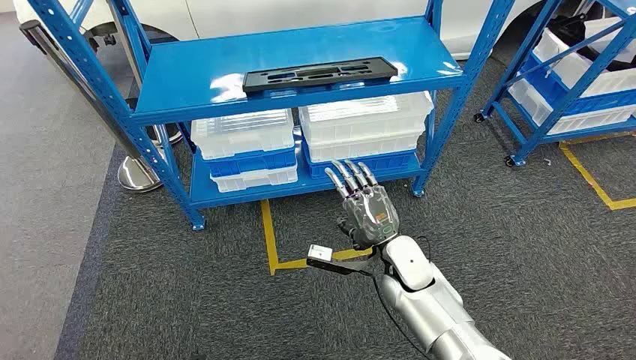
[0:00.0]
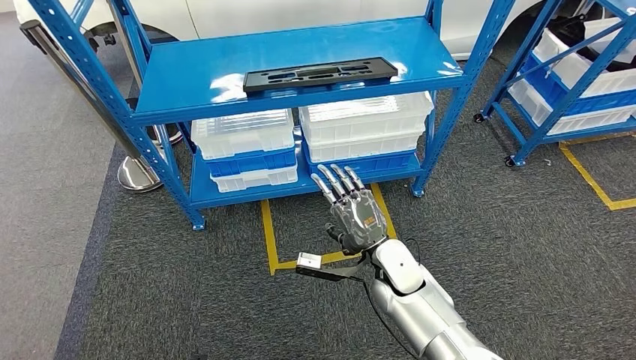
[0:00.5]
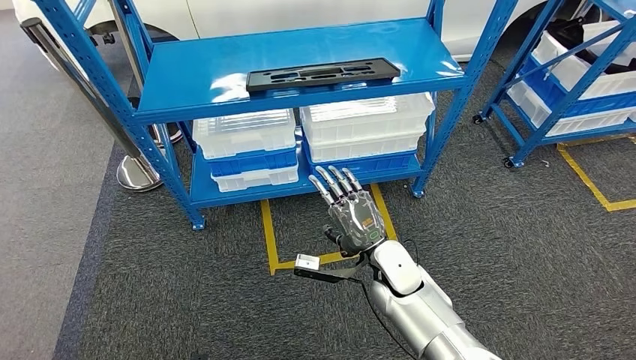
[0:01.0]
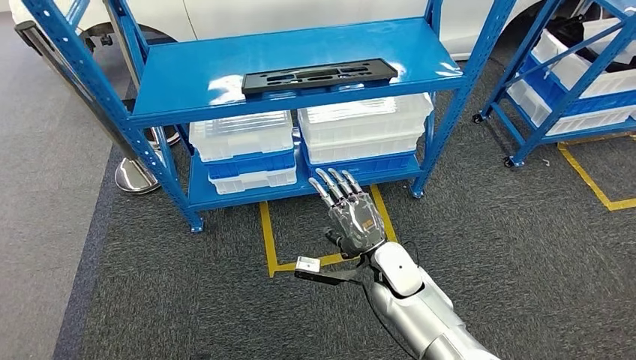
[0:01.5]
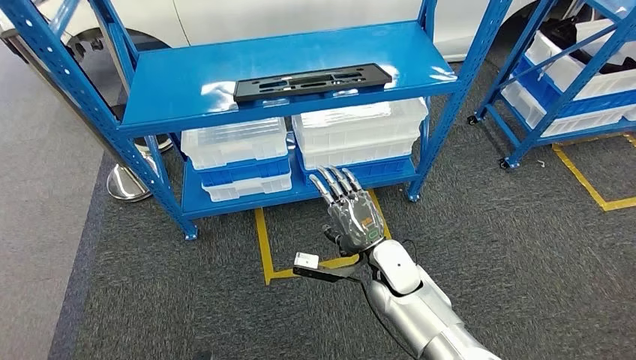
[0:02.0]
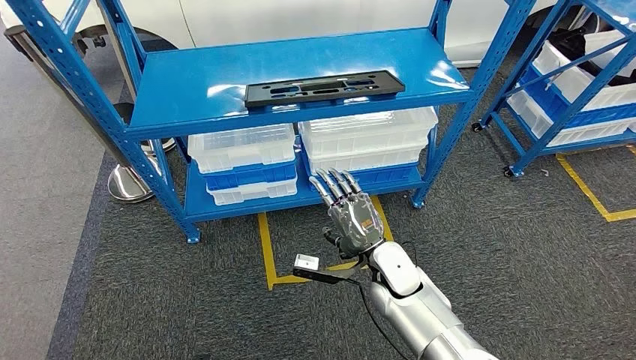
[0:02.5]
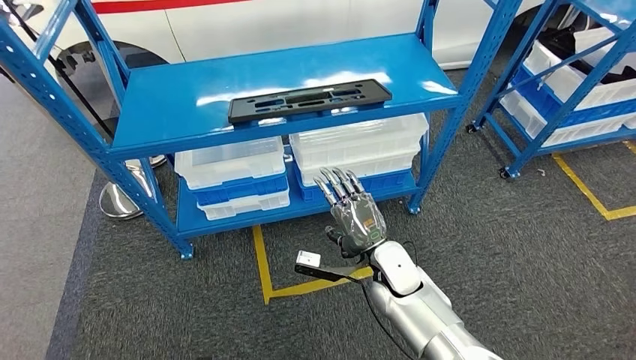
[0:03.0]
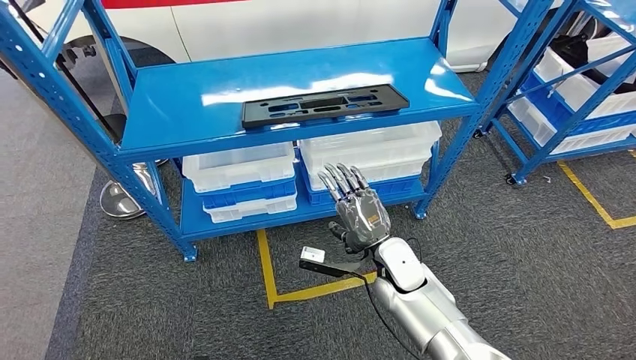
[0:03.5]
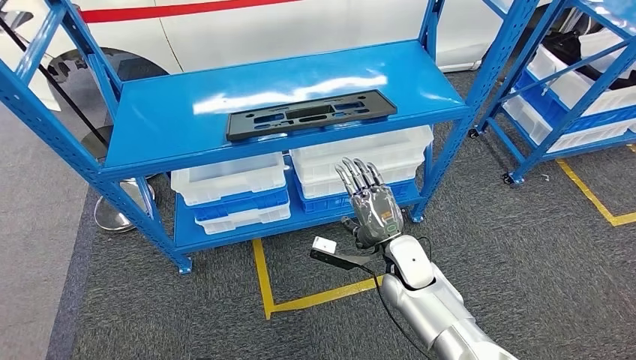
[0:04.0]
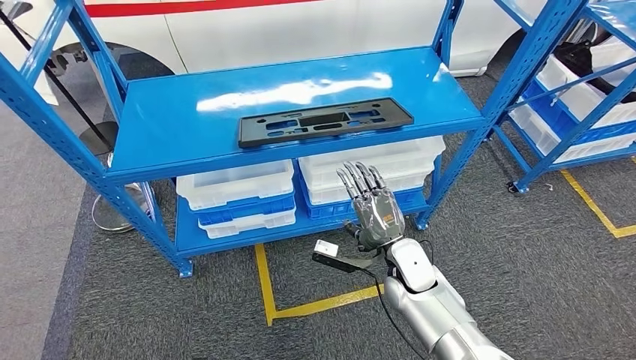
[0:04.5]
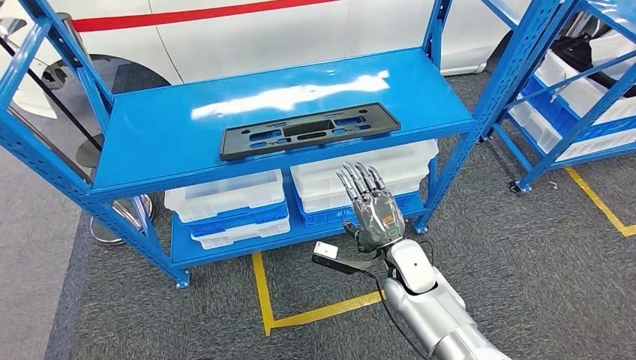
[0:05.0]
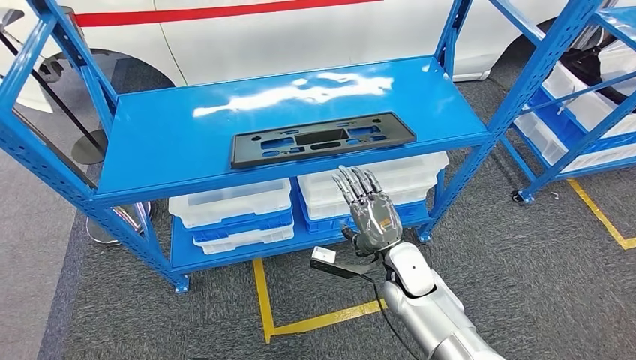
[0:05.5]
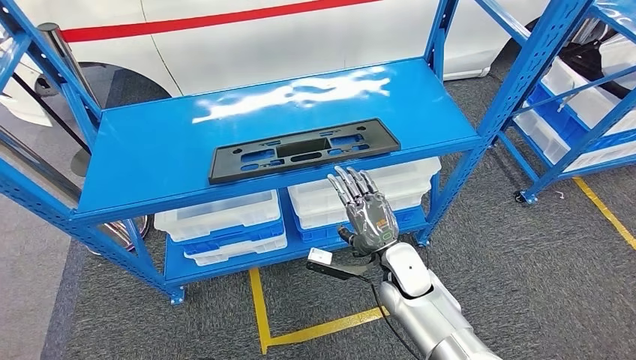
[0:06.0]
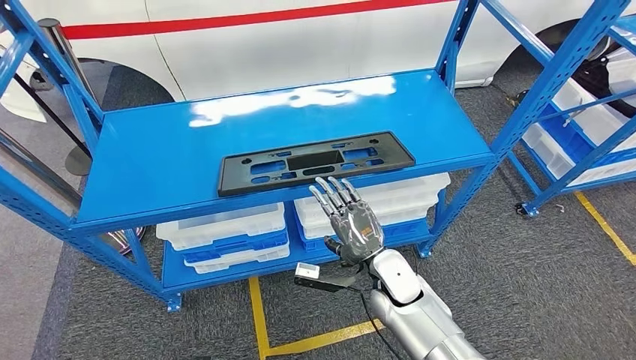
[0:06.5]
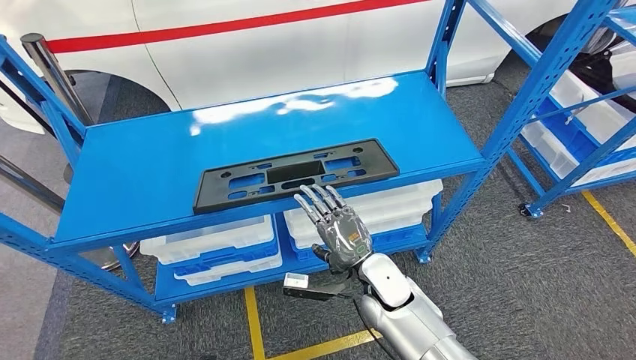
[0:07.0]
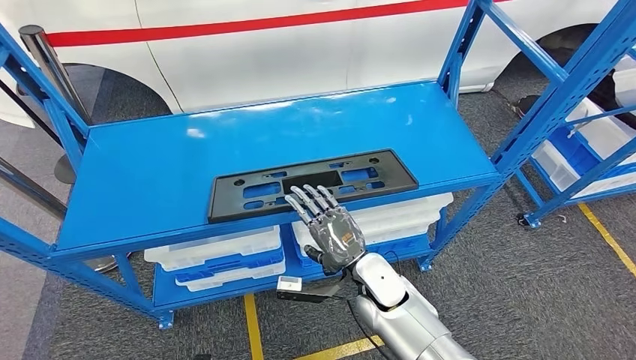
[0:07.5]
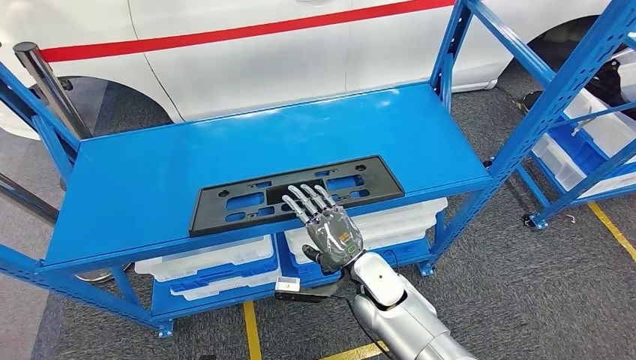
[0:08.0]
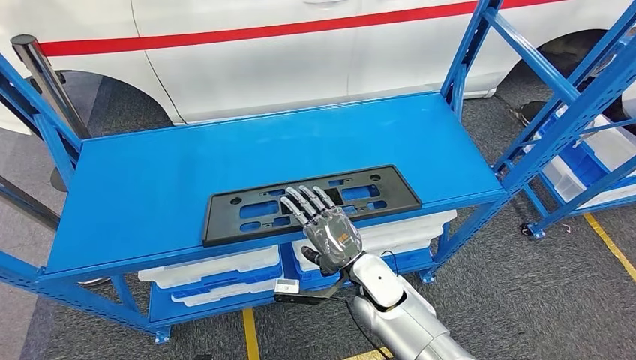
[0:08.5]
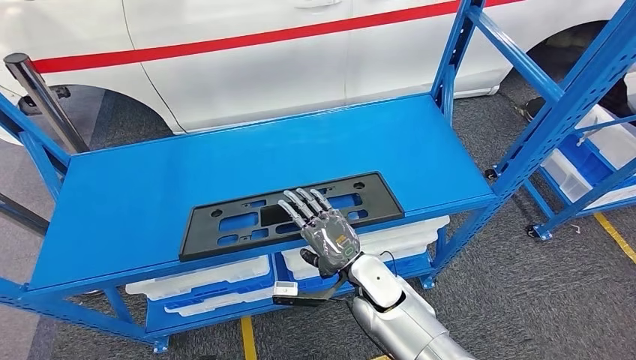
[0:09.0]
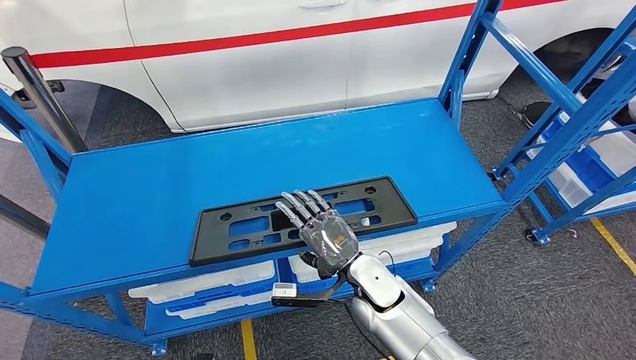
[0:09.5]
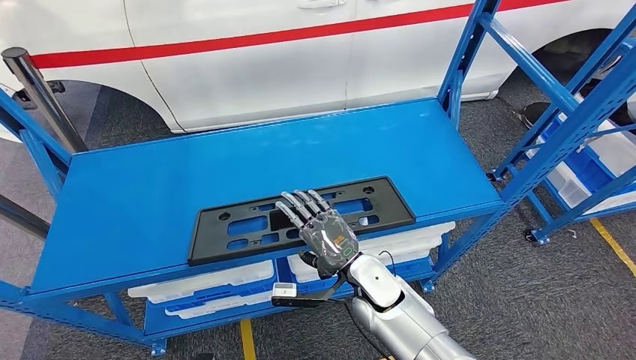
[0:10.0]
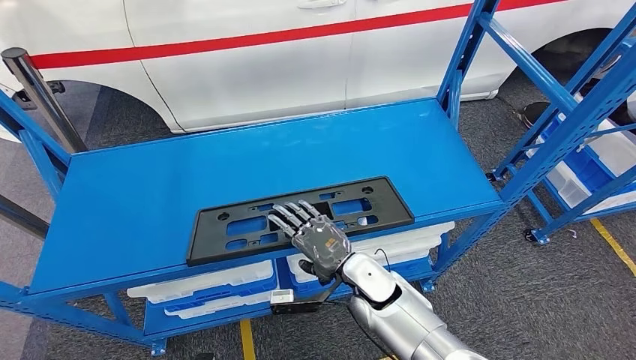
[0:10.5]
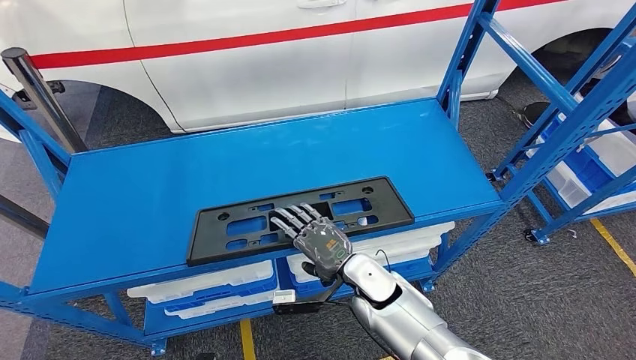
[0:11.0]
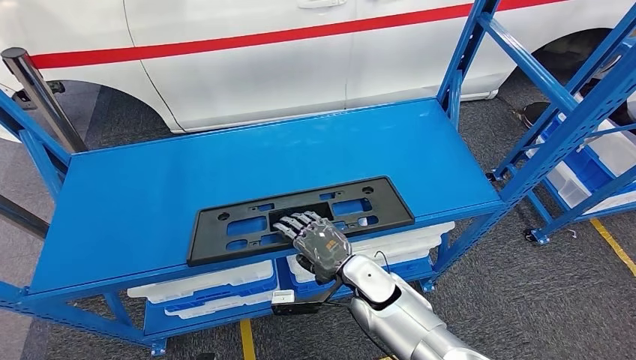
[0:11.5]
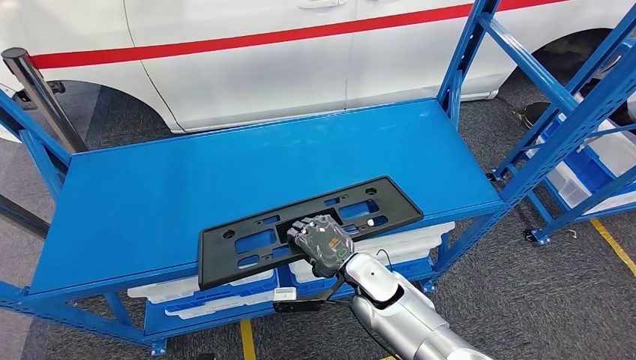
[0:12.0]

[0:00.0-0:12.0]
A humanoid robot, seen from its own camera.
0:10.0 to 0:12.0: The hands stay close to where they were, moving slightly.

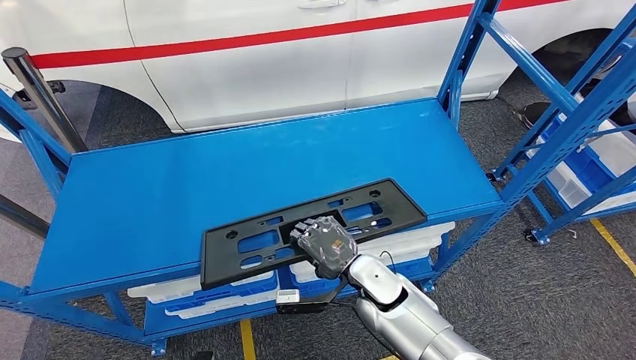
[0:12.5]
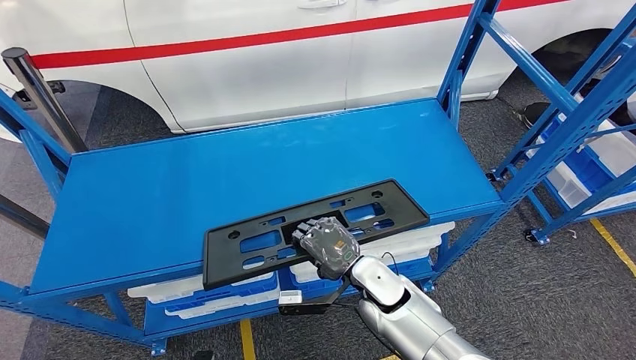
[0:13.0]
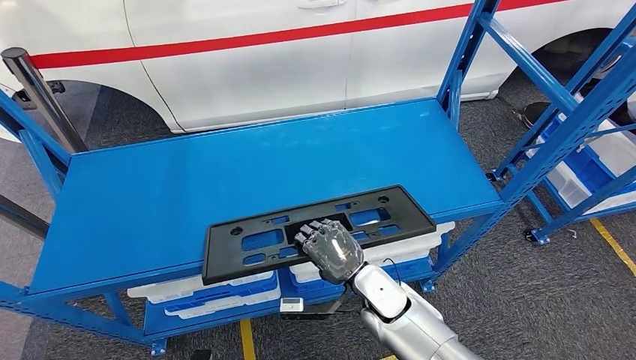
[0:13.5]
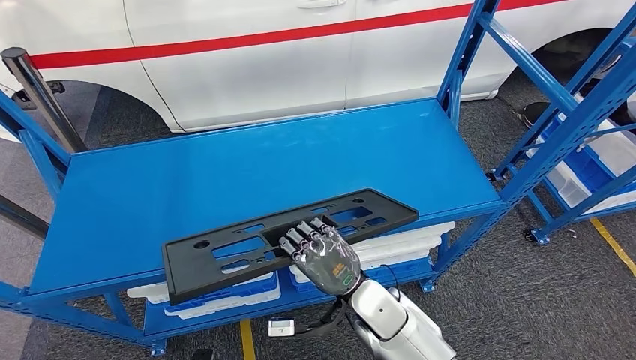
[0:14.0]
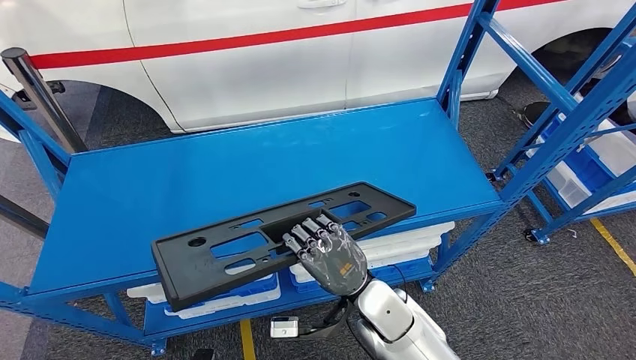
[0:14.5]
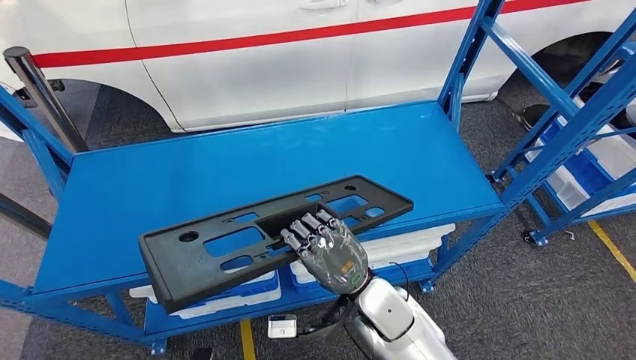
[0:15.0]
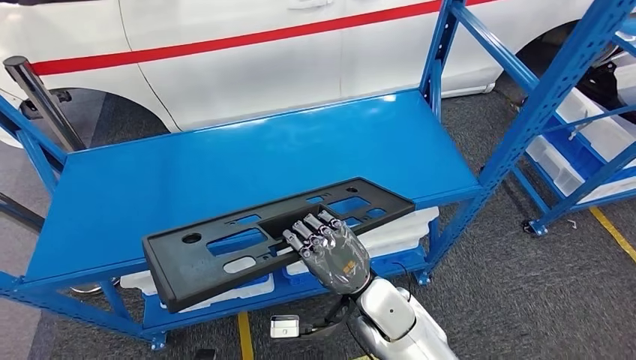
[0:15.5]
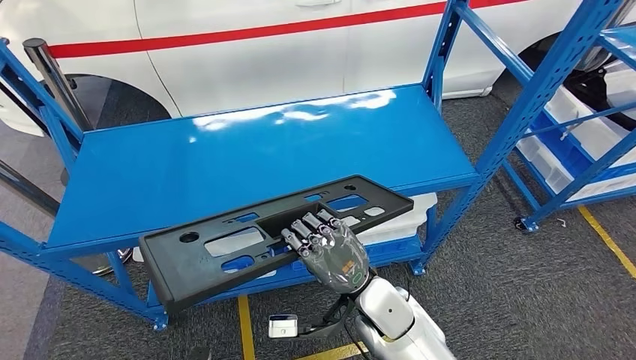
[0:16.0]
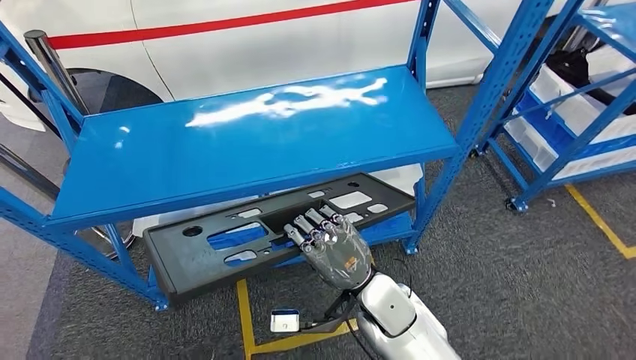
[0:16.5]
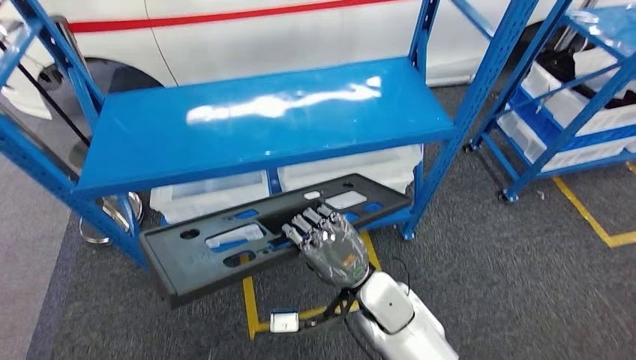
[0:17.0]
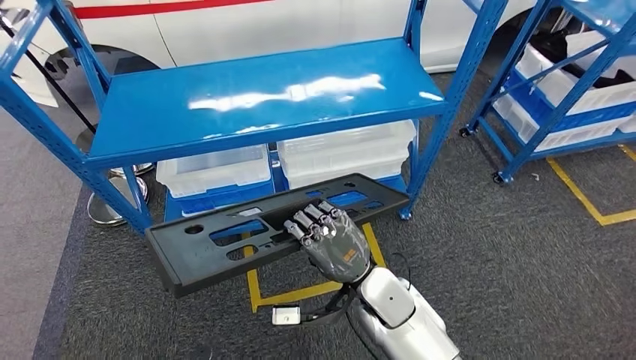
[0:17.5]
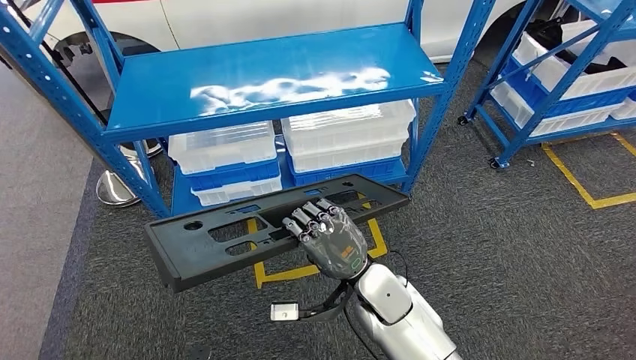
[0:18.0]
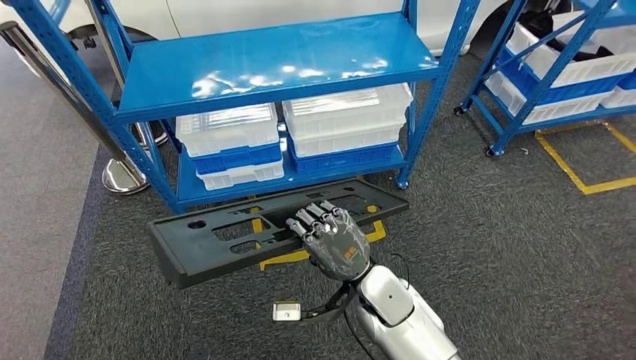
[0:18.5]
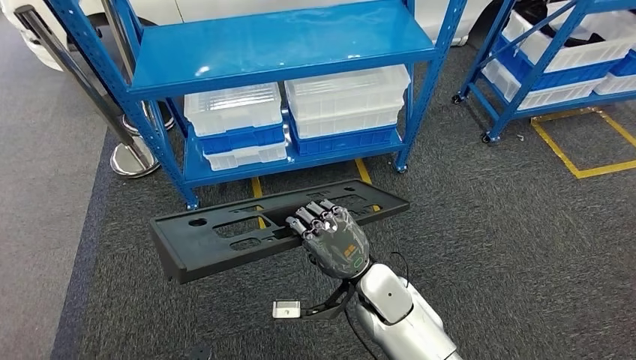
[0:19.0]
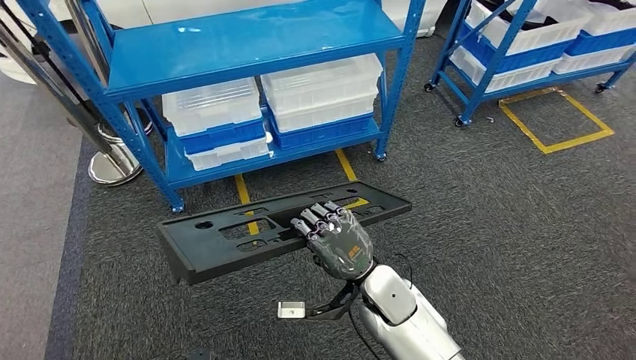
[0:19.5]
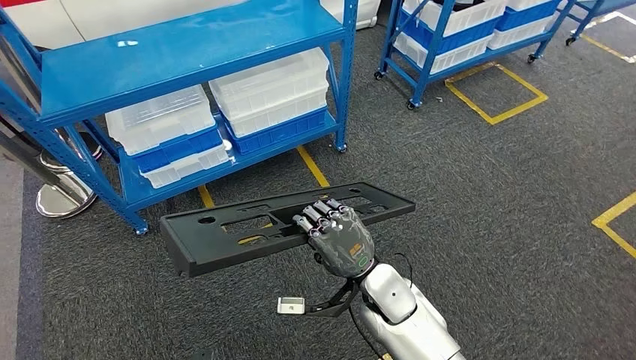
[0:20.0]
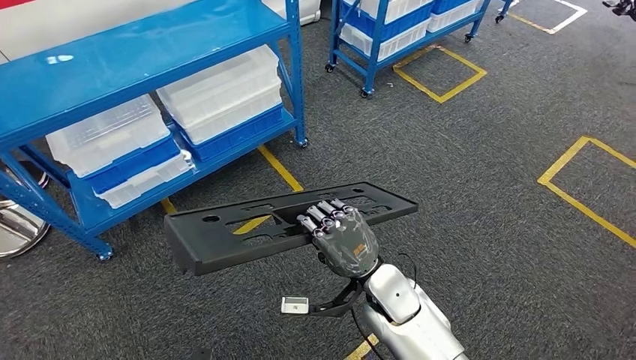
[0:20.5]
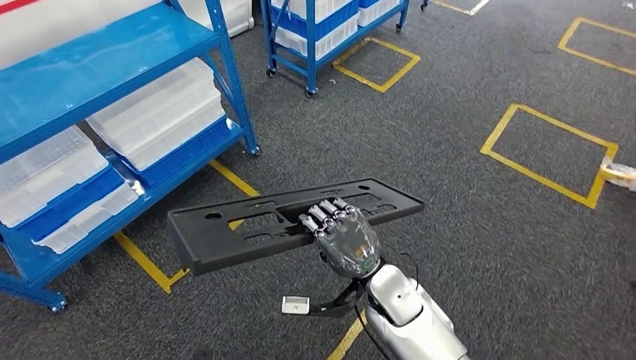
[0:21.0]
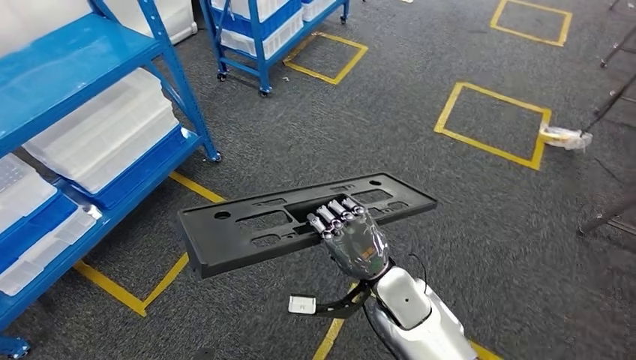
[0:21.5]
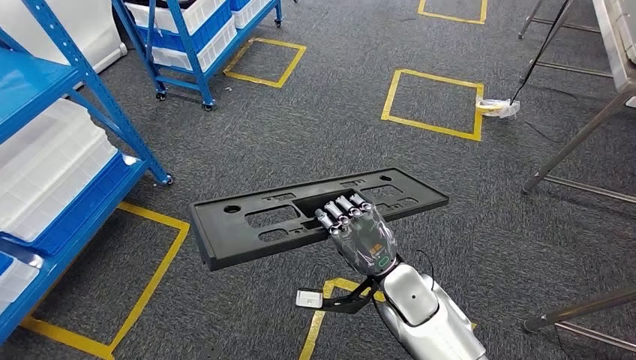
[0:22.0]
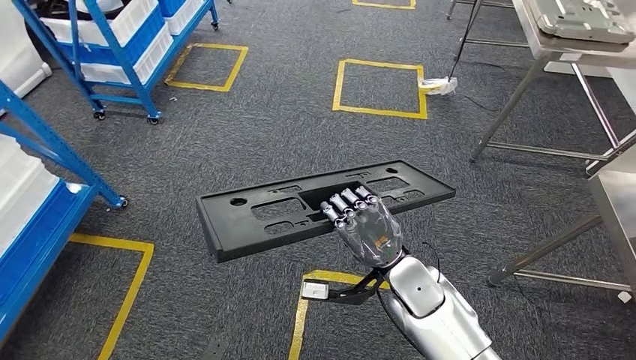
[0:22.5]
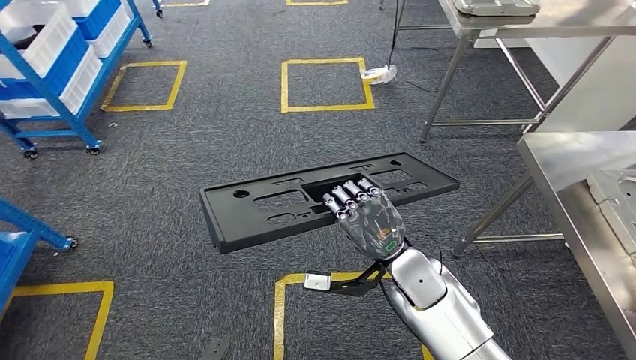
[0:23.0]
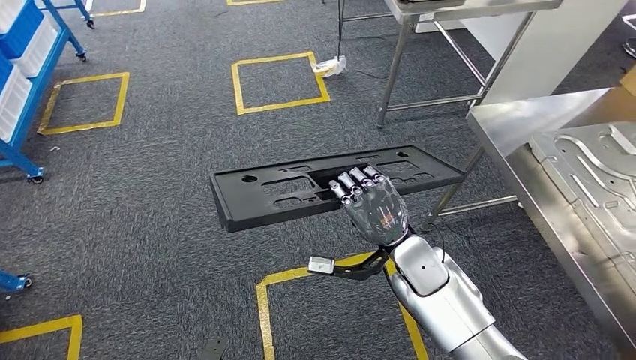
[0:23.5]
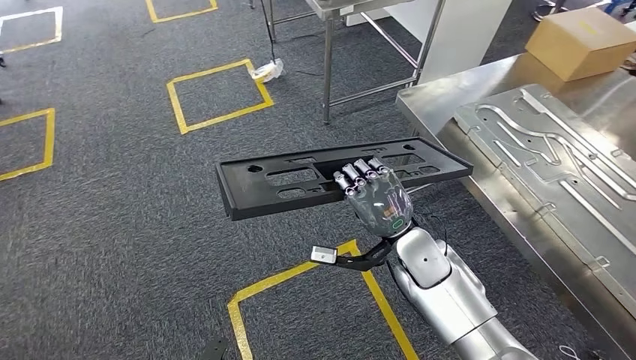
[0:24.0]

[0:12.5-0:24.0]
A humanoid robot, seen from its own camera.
0:12.5 to 0:14.5: The right hand changes place by some 5 cm.
